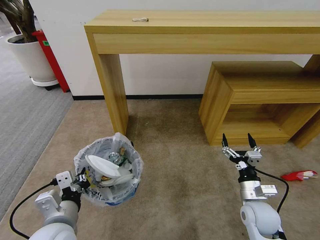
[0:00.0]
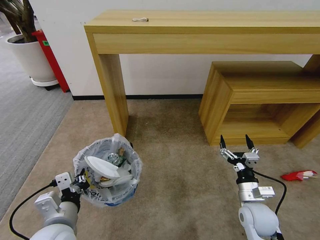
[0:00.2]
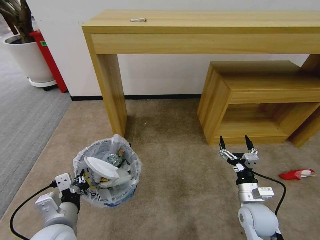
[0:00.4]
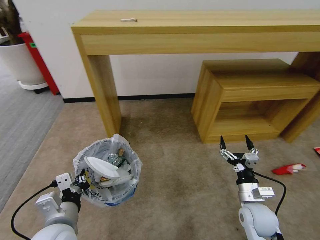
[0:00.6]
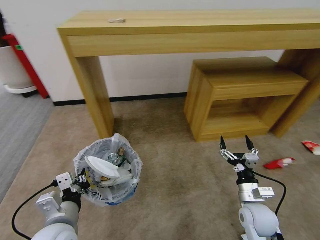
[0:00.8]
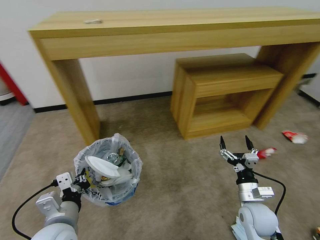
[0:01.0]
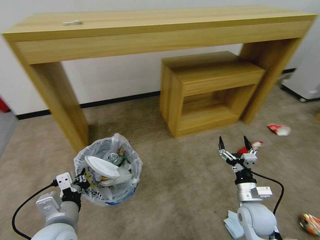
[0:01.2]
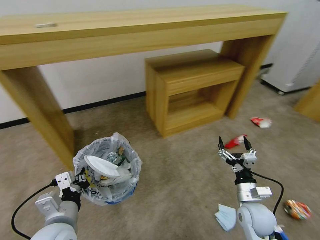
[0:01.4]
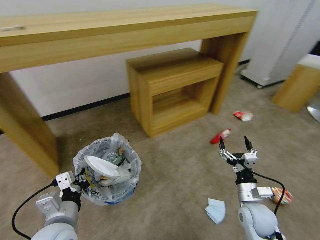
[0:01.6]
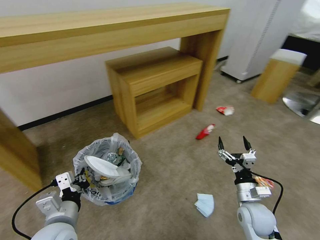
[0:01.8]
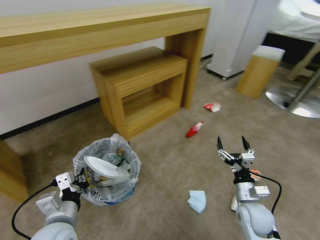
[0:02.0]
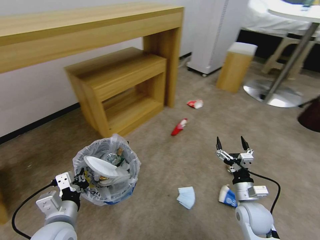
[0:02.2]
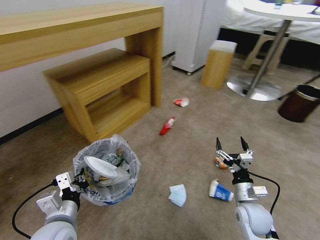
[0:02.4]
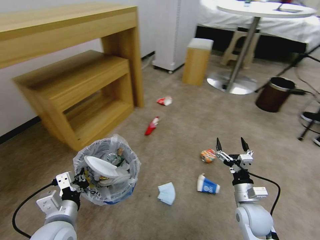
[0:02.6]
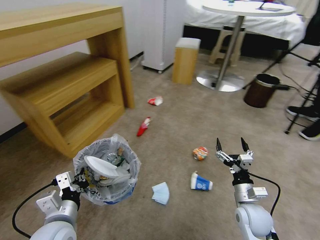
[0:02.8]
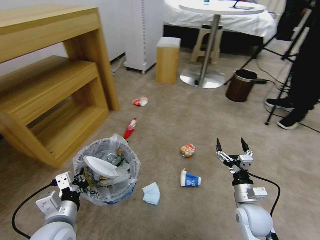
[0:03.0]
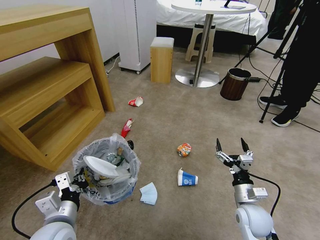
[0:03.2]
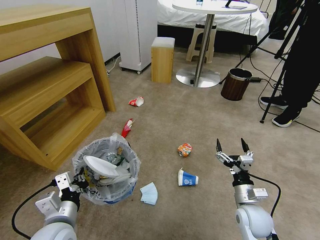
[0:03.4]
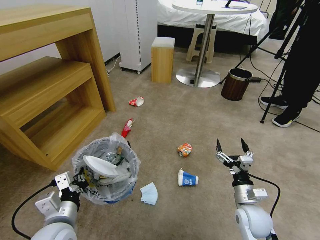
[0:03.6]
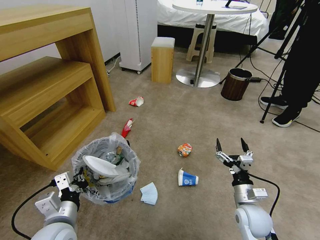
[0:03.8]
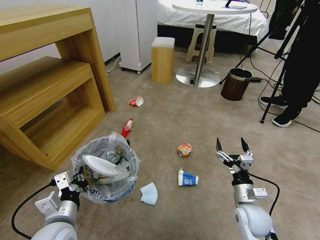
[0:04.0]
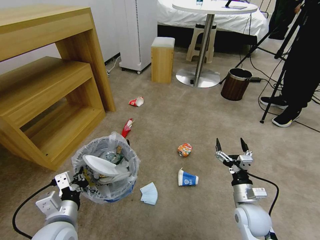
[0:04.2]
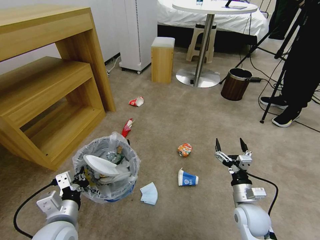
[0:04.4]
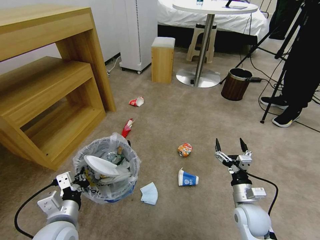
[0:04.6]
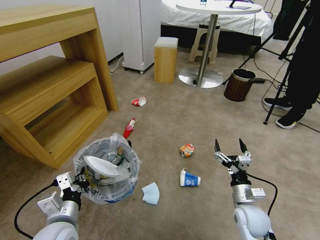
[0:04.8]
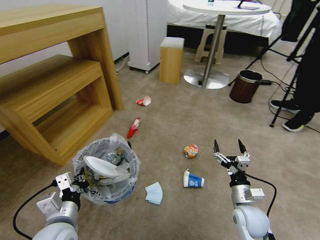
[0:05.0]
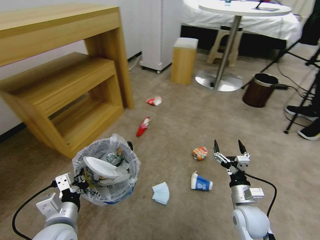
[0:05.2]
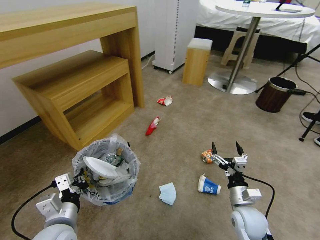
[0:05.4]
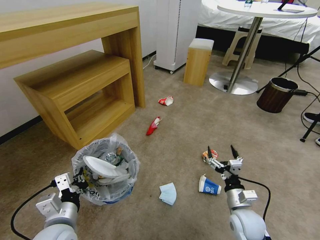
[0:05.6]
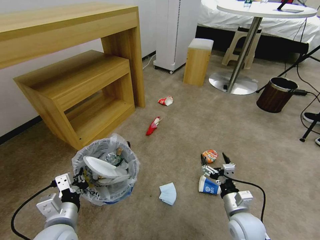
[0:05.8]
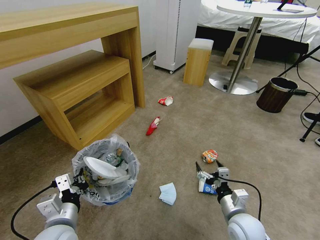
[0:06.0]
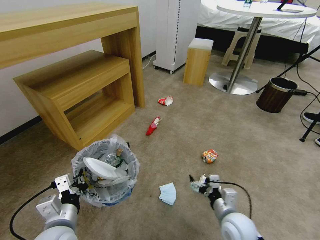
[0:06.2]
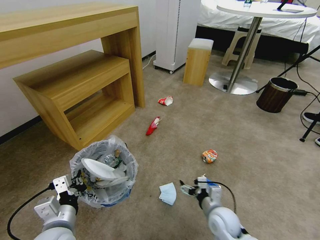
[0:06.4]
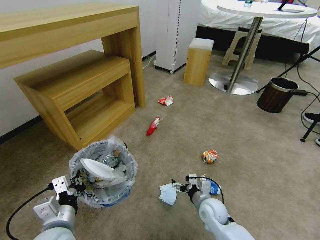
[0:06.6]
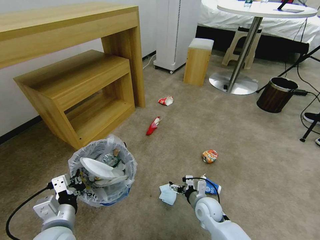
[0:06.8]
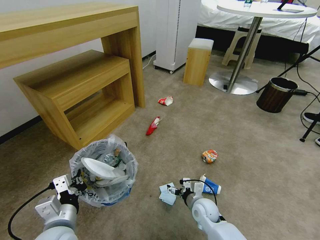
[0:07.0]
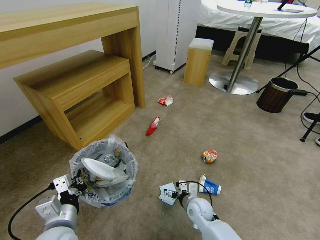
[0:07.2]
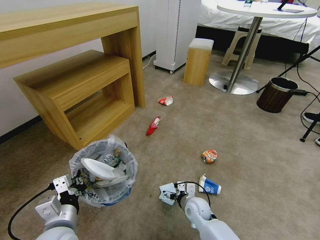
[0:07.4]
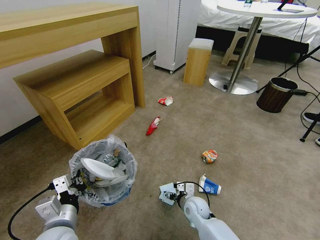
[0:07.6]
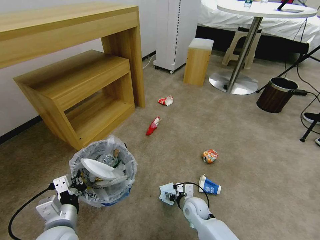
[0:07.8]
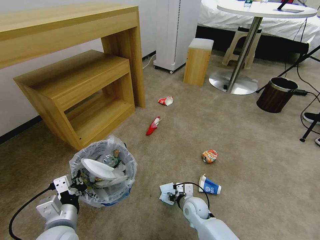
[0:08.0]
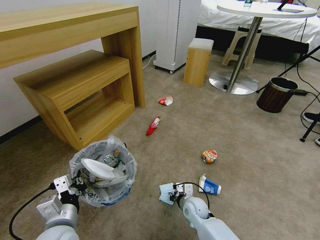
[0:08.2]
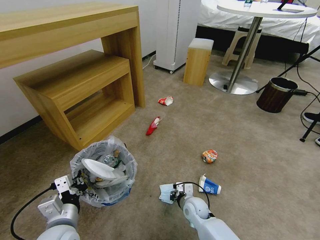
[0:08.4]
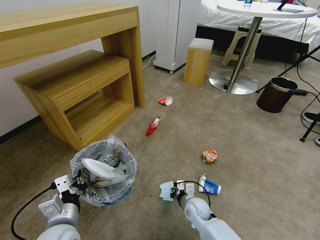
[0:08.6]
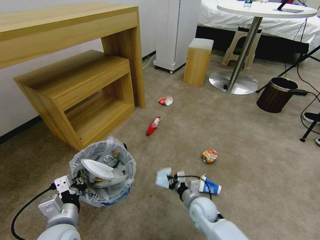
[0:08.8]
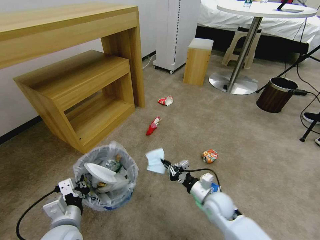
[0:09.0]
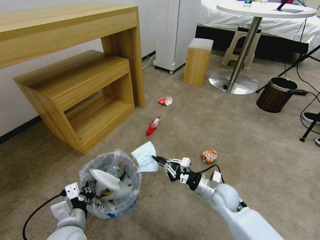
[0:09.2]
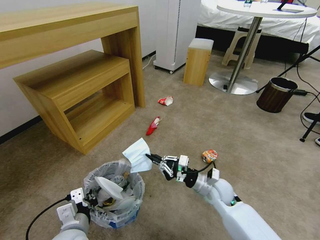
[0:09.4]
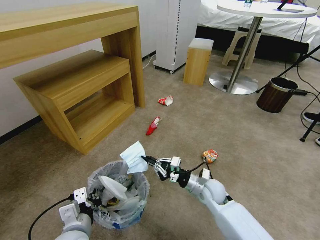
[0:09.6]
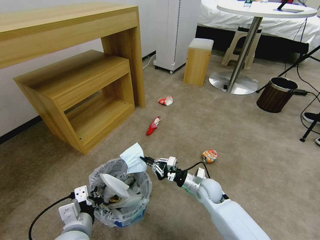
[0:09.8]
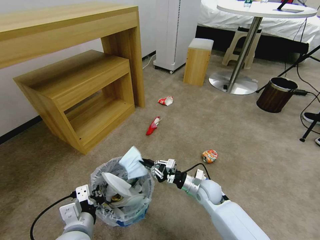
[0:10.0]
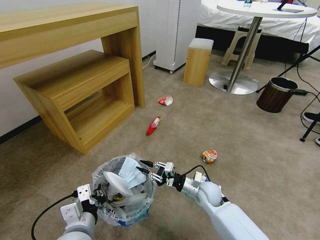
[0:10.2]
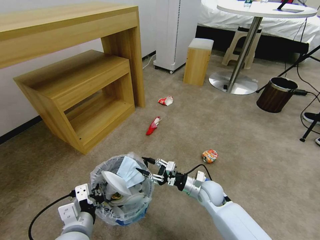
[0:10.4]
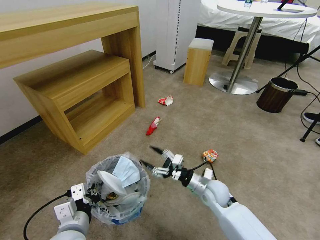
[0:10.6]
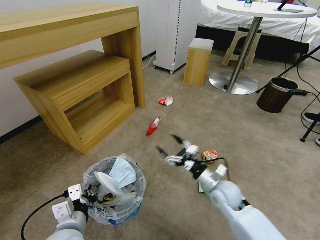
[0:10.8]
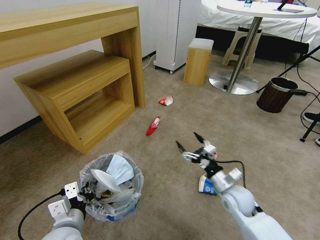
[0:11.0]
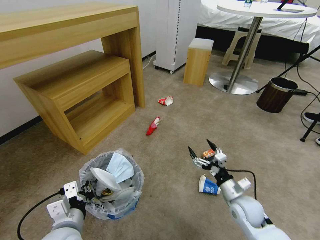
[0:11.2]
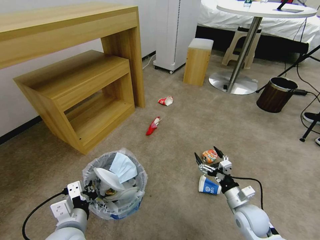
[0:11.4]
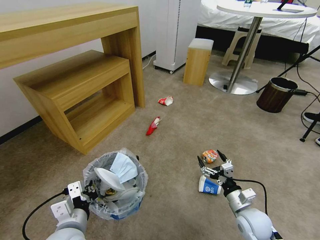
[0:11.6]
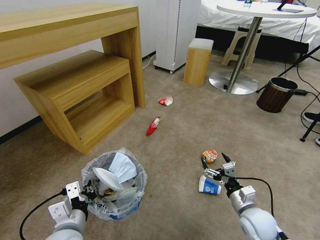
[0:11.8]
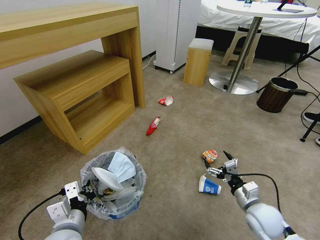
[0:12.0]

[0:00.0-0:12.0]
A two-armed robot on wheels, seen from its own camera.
Task of the whole recording: Pick up the trash bin and place the garbage on the floor into it.
0:03.0 to 0:04.4: Both grippers stay about where they are.
0:04.4 to 0:06.0: The right gripper moves roughly 5 cm.
0:06.0 to 0:07.6: The right gripper goes roughly 20 cm downward, to the left and forward.
0:07.6 to 0:09.0: The right gripper heads upward and to the right, covering about 10 cm, and closes its fingers.
0:09.0 to 0:10.4: The right gripper opens its fingers. Meanwhile the left gripper changes place by about 5 cm.
0:10.4 to 0:12.0: The right gripper is displaced to the right and backward by approximately 15 cm, and opens up.

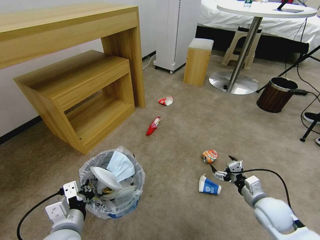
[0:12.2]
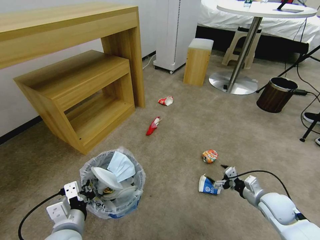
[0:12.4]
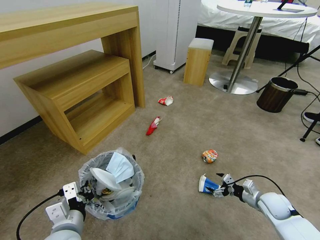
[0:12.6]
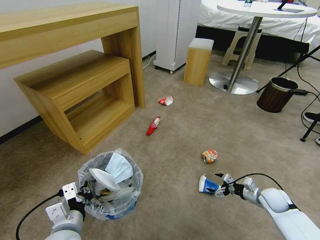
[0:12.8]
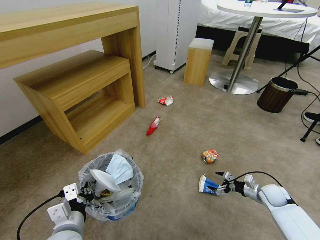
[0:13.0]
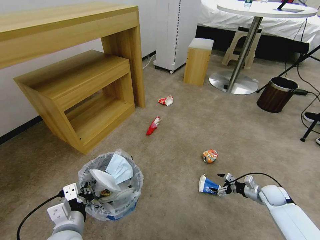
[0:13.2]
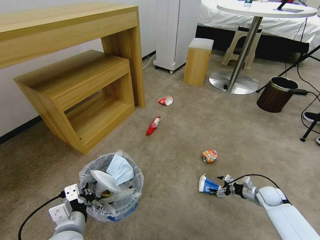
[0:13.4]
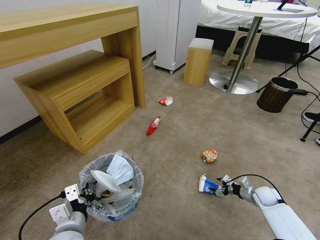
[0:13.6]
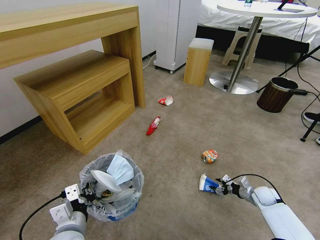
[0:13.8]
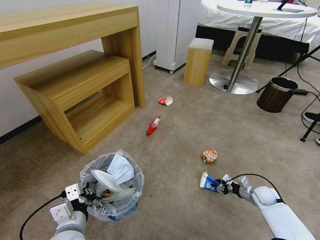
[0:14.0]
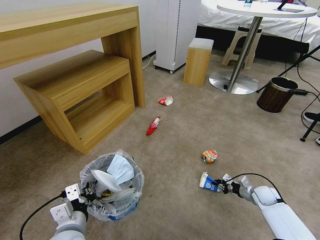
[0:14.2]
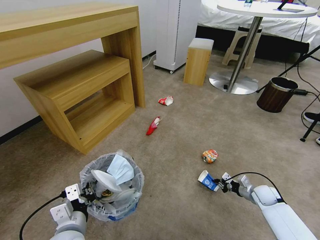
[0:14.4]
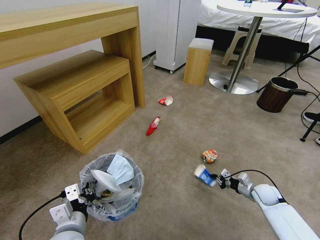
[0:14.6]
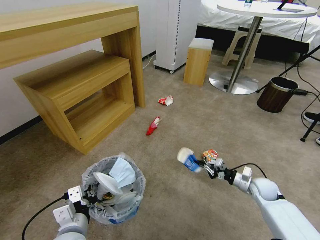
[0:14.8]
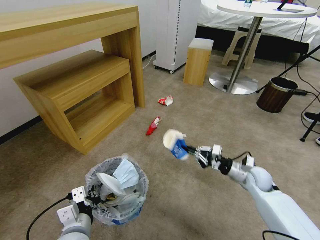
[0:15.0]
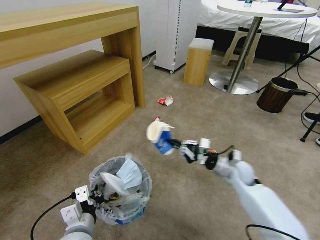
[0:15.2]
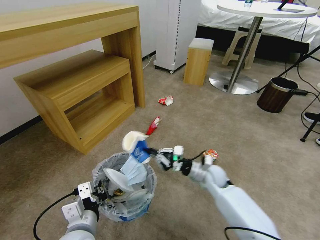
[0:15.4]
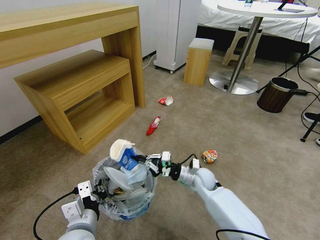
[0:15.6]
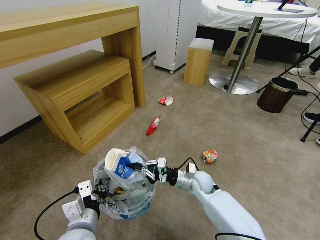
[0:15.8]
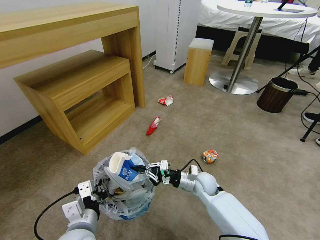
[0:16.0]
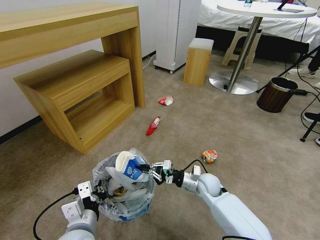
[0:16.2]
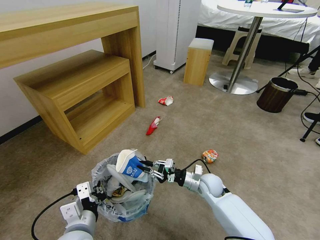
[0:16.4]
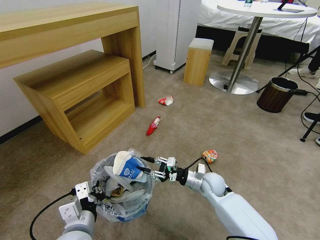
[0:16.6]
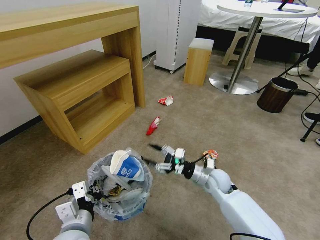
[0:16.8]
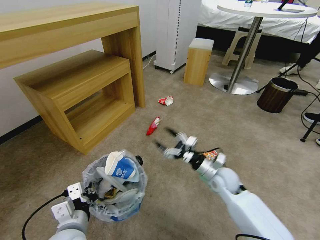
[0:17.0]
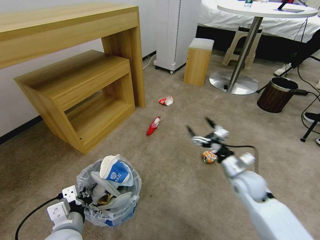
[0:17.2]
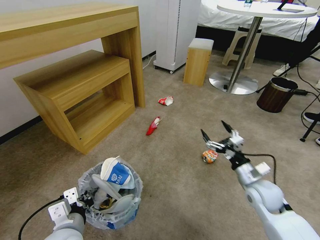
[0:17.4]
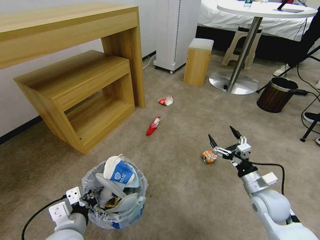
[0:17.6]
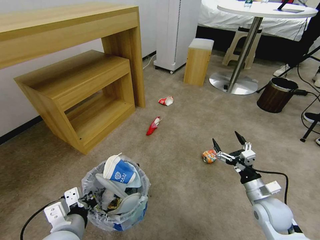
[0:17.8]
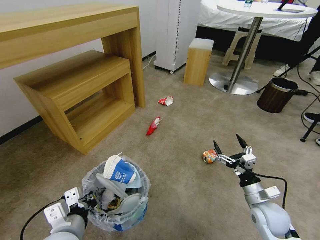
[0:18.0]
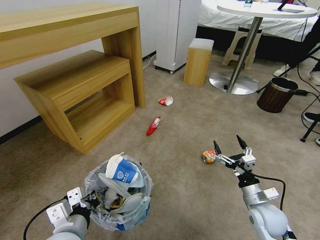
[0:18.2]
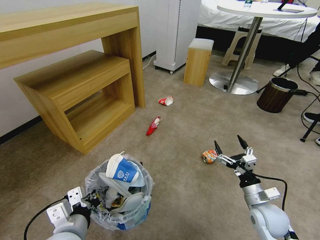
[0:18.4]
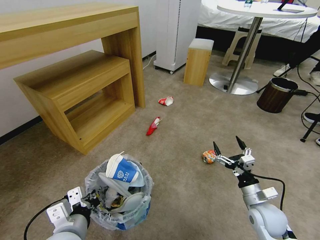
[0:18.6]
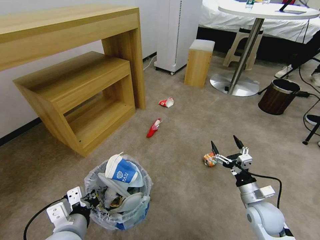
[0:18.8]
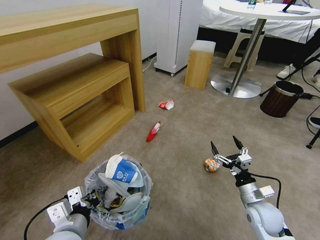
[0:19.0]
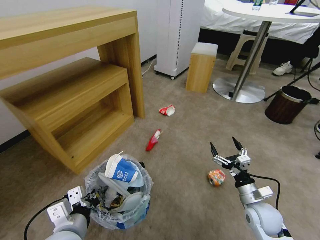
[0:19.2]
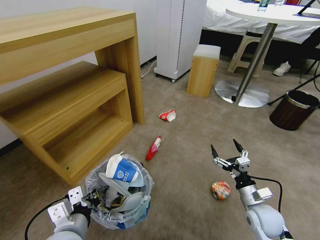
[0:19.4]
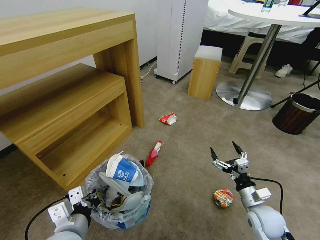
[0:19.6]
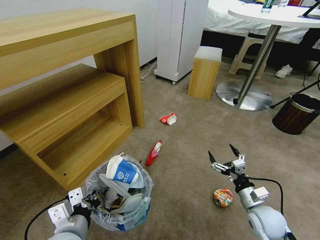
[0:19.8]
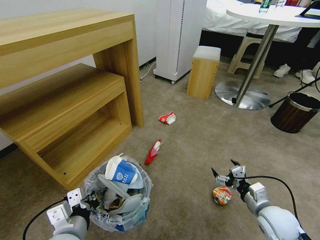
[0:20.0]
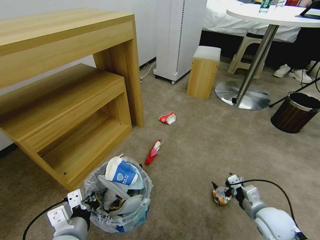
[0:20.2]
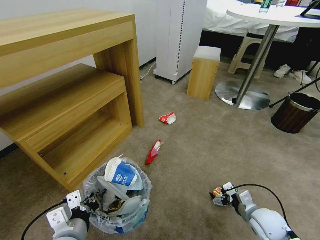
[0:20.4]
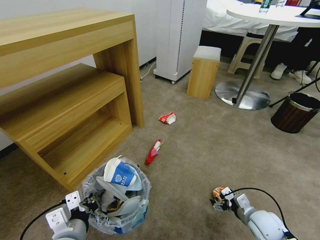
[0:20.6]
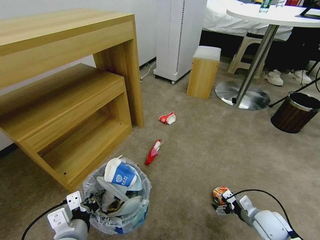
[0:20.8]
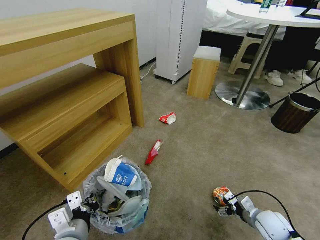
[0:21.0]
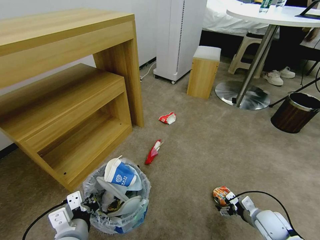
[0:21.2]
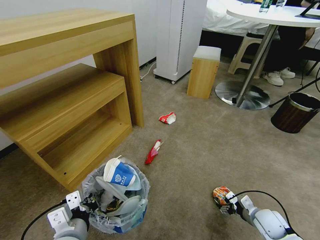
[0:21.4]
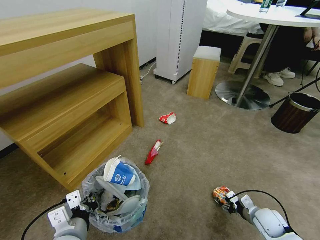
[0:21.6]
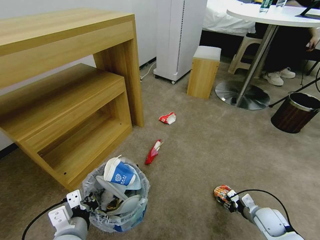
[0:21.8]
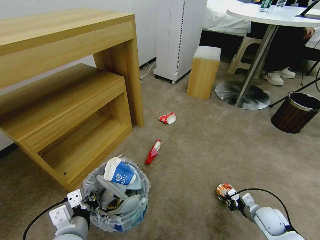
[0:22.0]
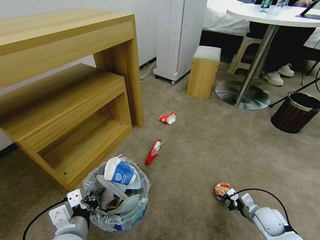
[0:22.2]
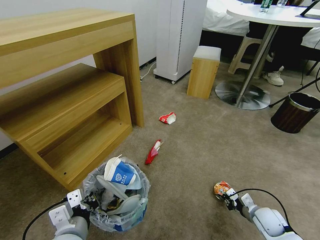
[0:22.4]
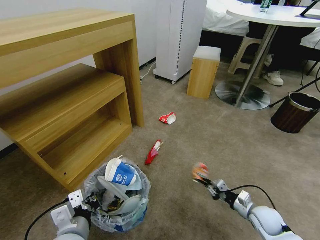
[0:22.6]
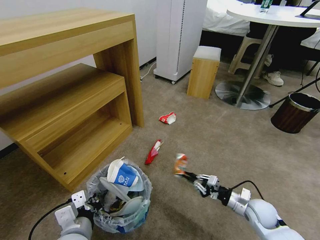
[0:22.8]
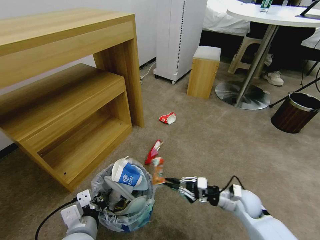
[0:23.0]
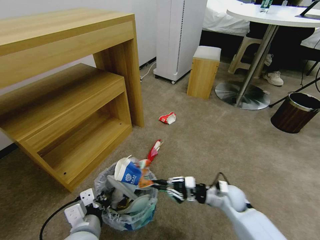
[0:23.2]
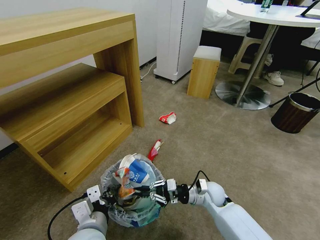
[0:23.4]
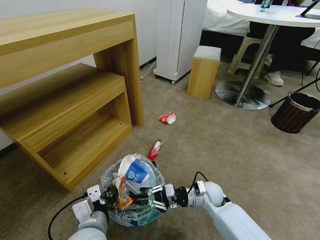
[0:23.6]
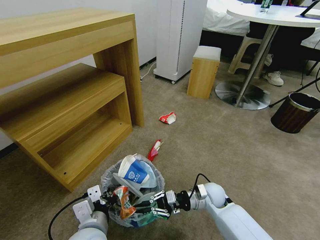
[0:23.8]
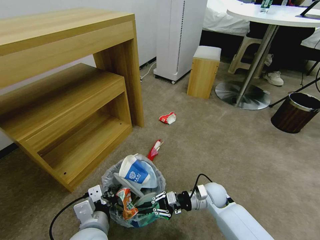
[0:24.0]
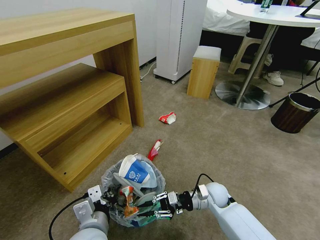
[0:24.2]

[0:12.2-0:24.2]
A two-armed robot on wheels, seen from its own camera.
Task of the whole recording: Pick up the trash bin and place the garbage on the floor into it.
0:12.2 to 0:13.8: The right gripper shifts approximately 20 cm downward, to the right and forward, and closes.
0:13.8 to 0:15.2: The right gripper travels to the left and upward by some 25 cm, and closes its fingers.
0:15.2 to 0:16.6: The right gripper heads to the left and downward, covering approximately 10 cm, and opens its fingers.
0:16.6 to 0:18.2: The right gripper heads to the right and backward, covering some 20 cm, and opens up.
0:19.8 to 0:21.2: The right gripper shifts approximately 10 cm downward and to the right.
0:21.2 to 0:22.6: The right gripper closes.
0:22.6 to 0:24.2: The right gripper goes roughly 20 cm to the left and forward.
